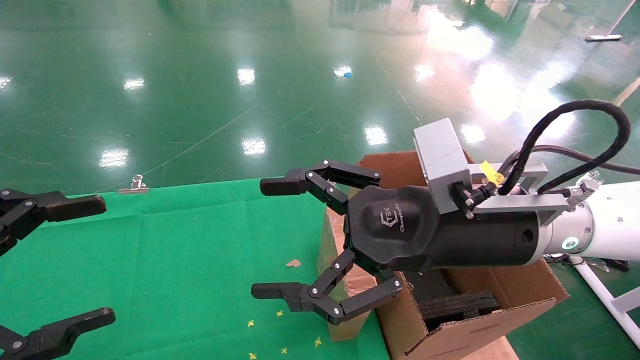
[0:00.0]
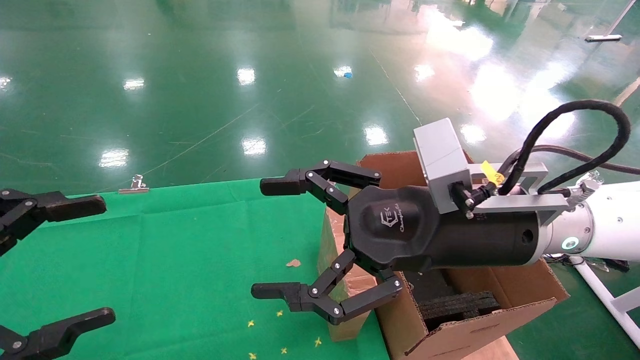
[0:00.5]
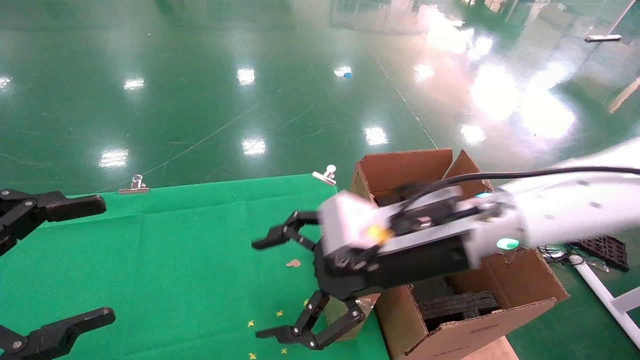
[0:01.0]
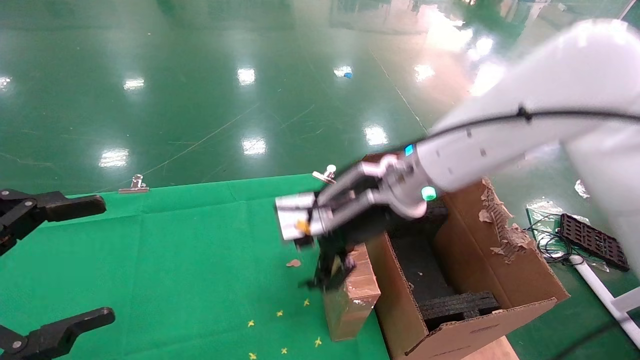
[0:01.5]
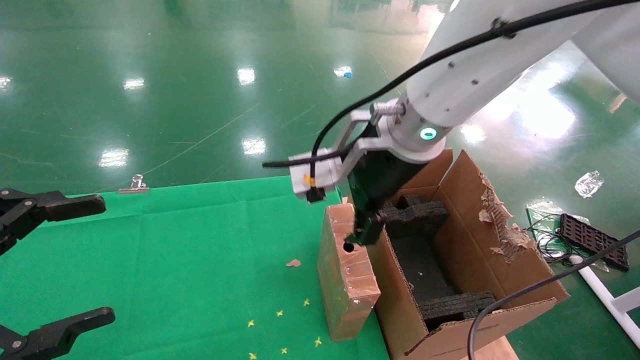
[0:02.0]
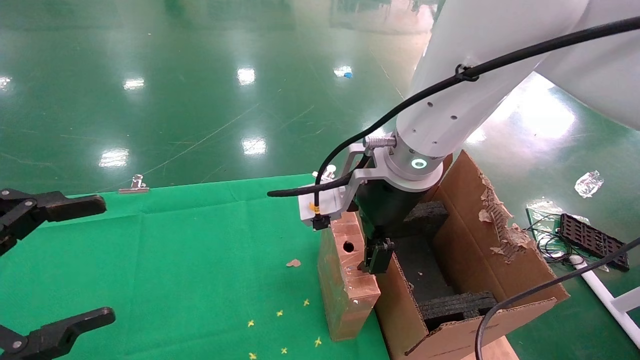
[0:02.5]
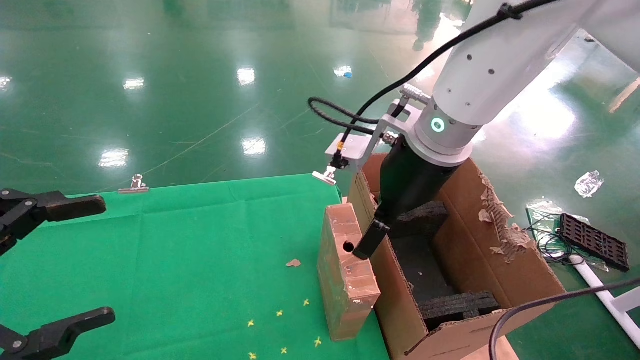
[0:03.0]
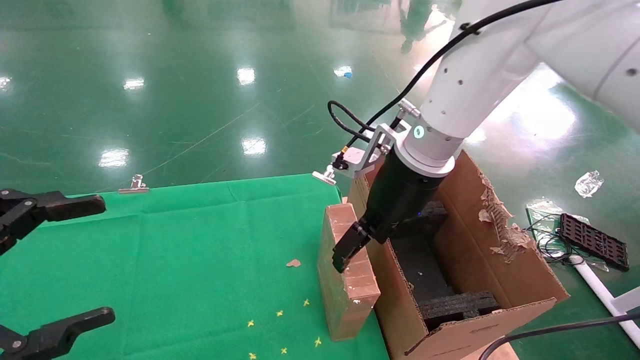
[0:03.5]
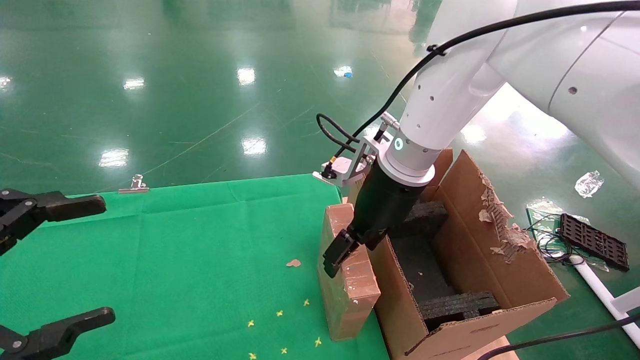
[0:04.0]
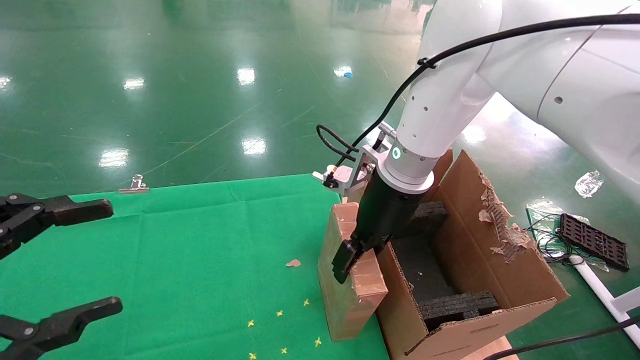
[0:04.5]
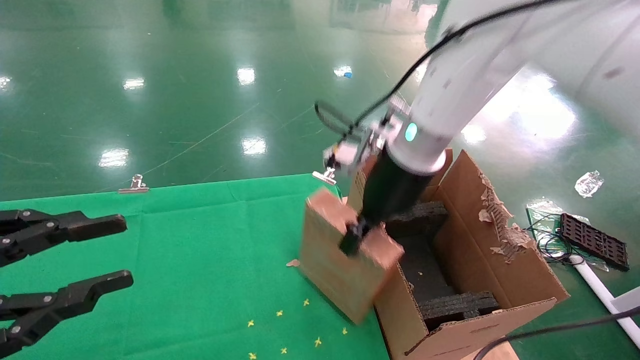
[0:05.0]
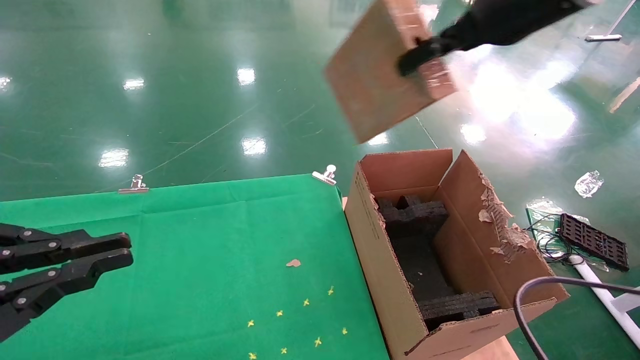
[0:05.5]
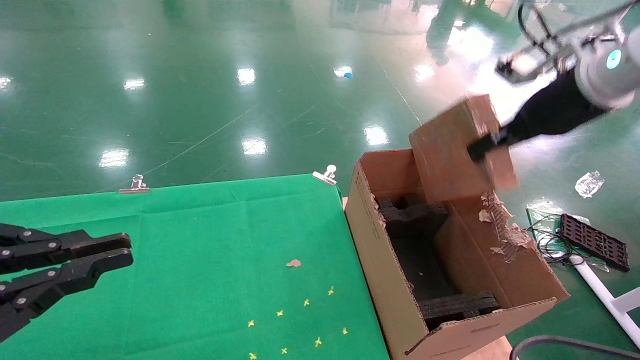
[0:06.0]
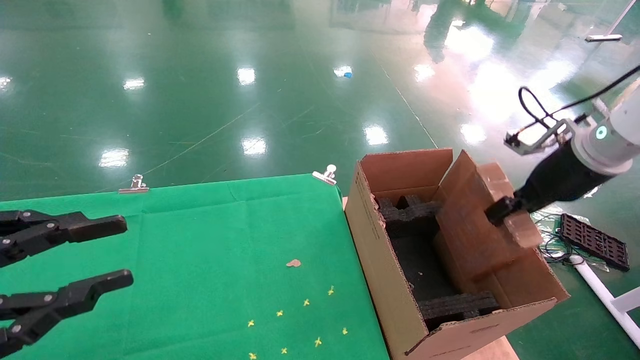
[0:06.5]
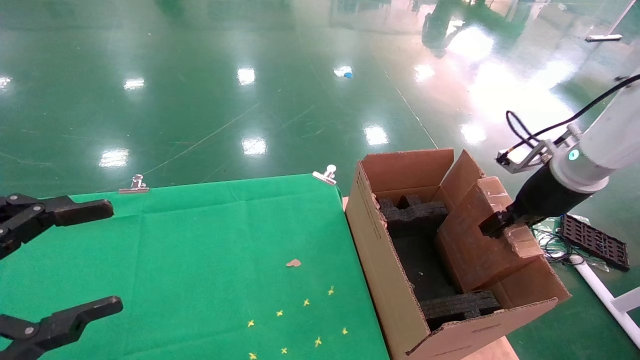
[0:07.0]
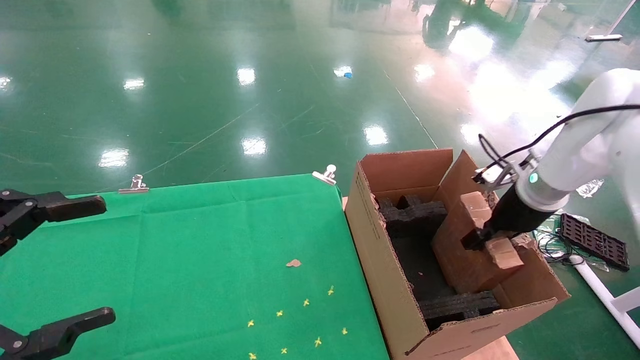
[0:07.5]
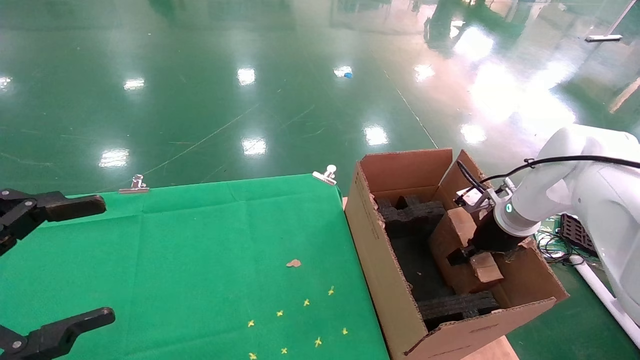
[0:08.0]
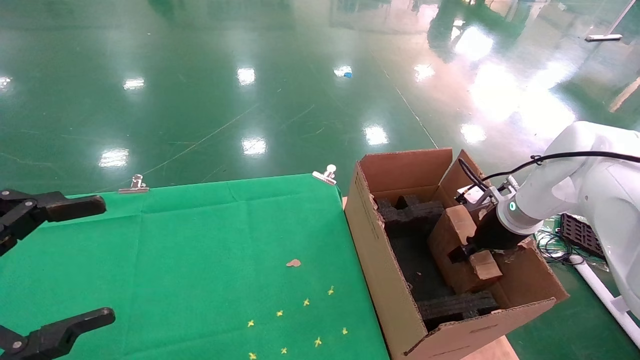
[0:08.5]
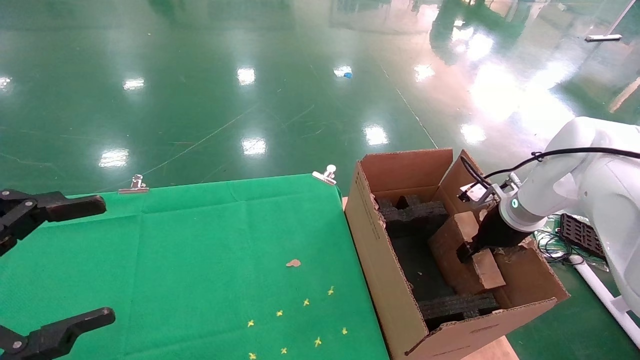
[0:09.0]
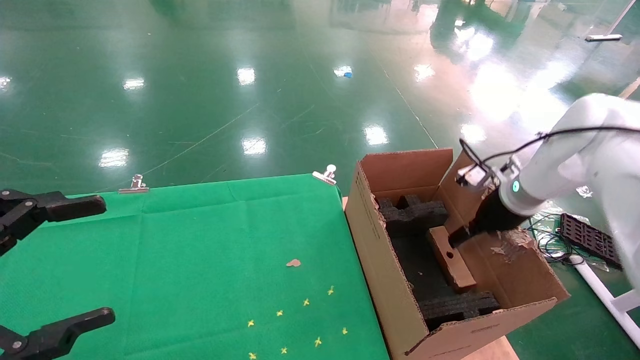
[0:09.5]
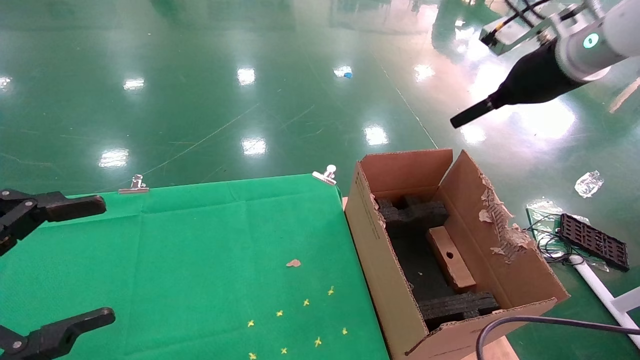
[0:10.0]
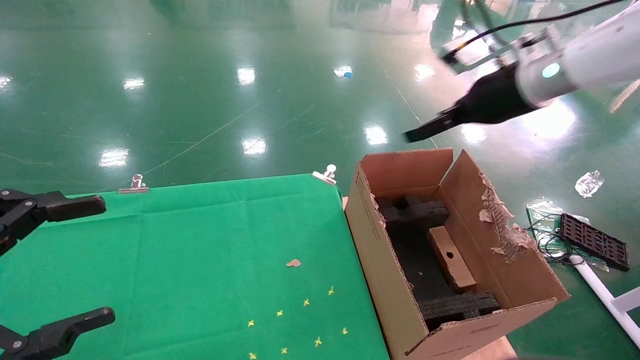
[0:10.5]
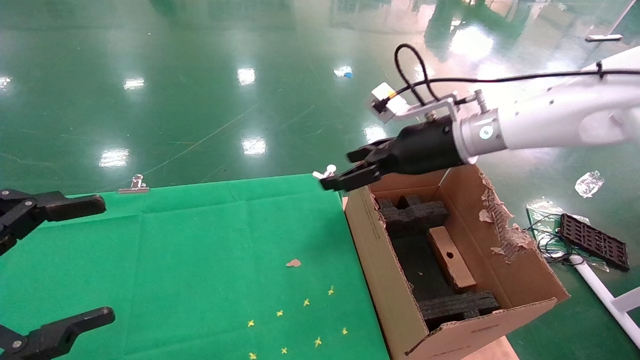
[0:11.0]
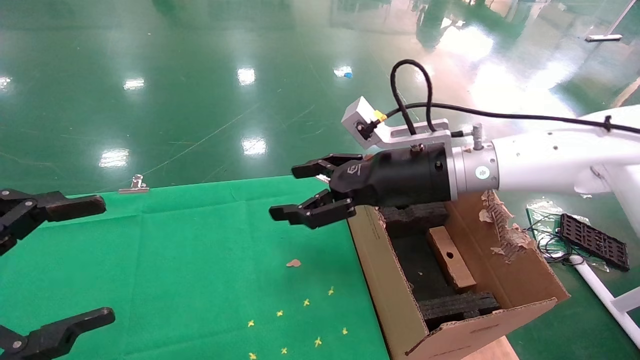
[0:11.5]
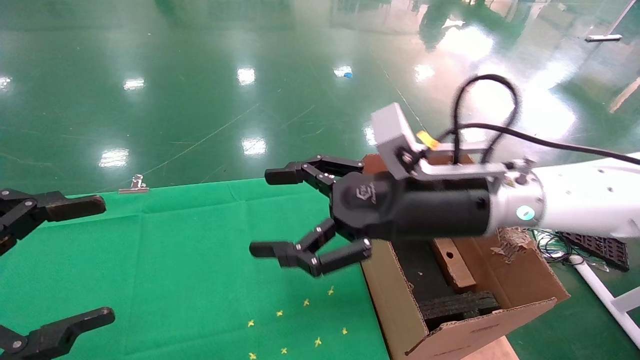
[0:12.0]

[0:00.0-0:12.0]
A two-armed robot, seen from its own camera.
Task of the whole recording: using a robotic arm to pick up a cardboard box and palace it the carton.
Step, 0:01.0 to 0:04.5: Pick up the mouse and the power cord paper box.
Step, 0:05.0 to 0:09.5: Place the mouse and the power cord paper box into the container.
0:00.0 to 0:02.0: The right gripper is displaced forward, to the left and upward by some 15 cm.
0:02.0 to 0:04.0: The right gripper moves forward, some 5 cm.
0:04.0 to 0:06.0: The right gripper shifts some 25 cm to the right and upward, and closes up; the left gripper closes its fingers.
0:06.0 to 0:08.0: The left gripper opens up, while the right gripper moves downward, about 20 cm.
0:08.0 to 0:10.0: The right gripper travels upward by roughly 25 cm, and opens up.
0:10.0 to 0:12.0: The right gripper goes approximately 25 cm to the left, downward and backward.

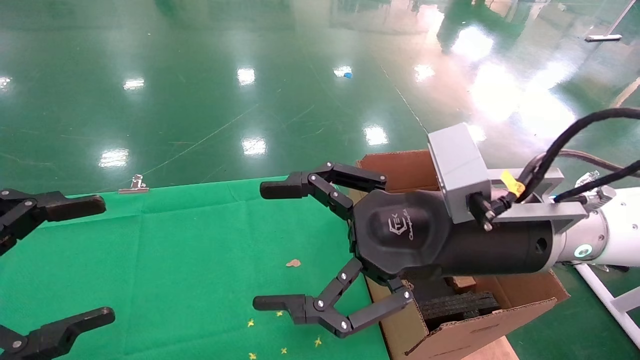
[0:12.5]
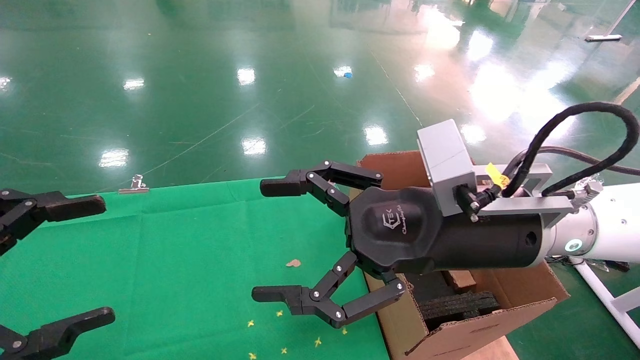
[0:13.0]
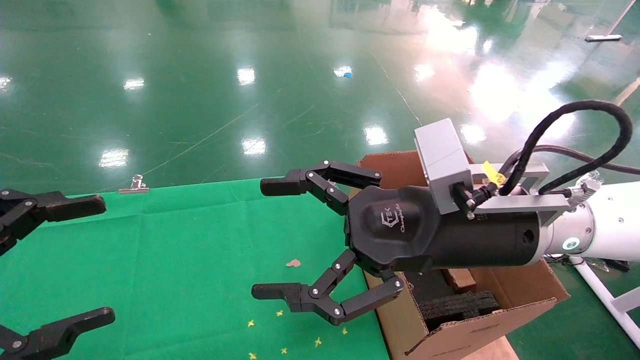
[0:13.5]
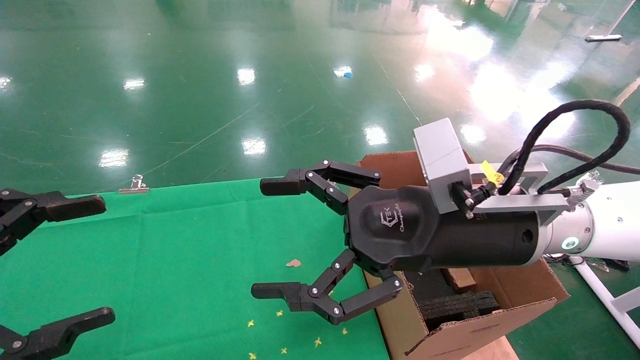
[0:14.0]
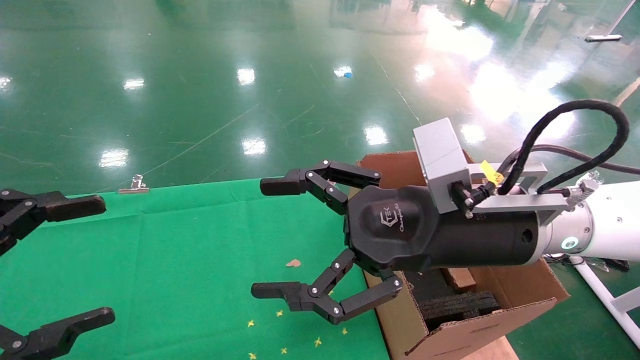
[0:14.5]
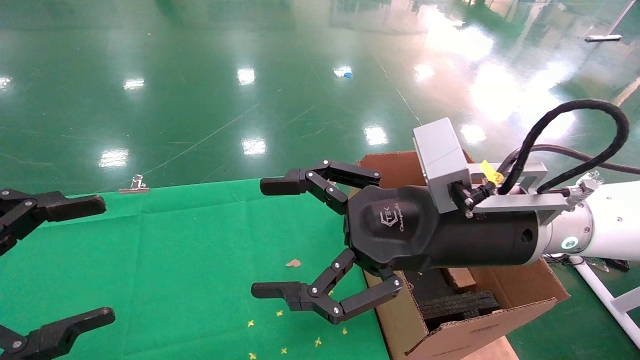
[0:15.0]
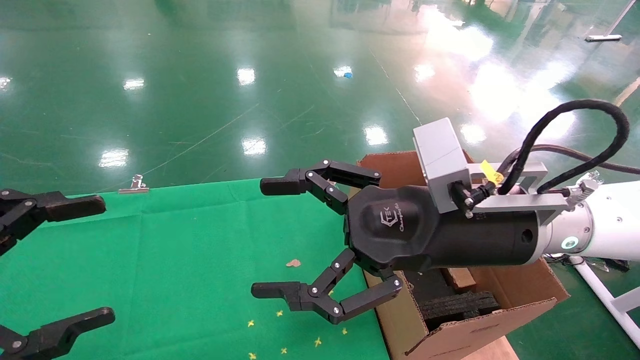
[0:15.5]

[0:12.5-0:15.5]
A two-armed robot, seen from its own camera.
Task of the whole recording: using a robotic arm to pick up a cardboard box and palace it the carton.
0:12.5 to 0:15.5: Neither gripper changes place.
